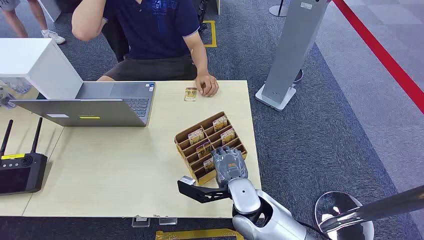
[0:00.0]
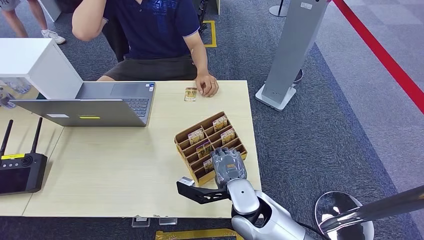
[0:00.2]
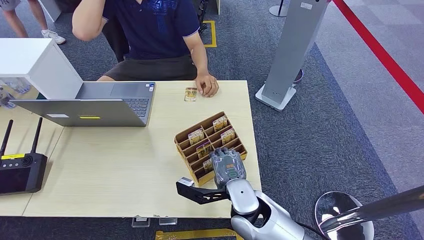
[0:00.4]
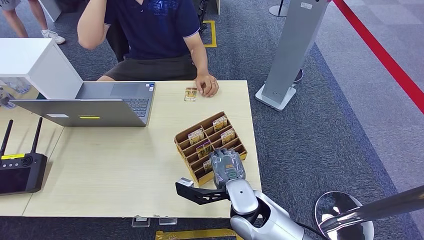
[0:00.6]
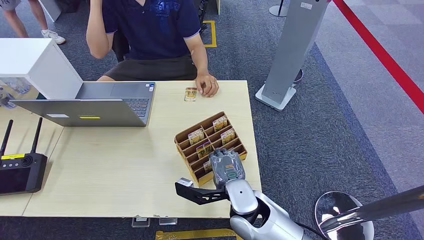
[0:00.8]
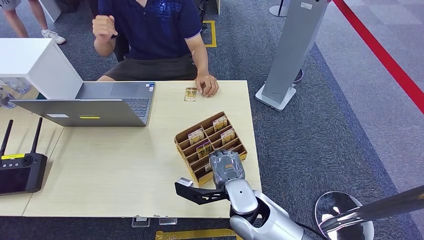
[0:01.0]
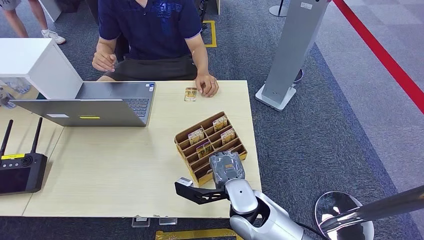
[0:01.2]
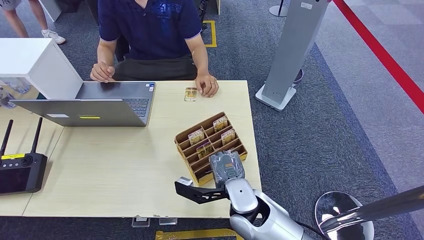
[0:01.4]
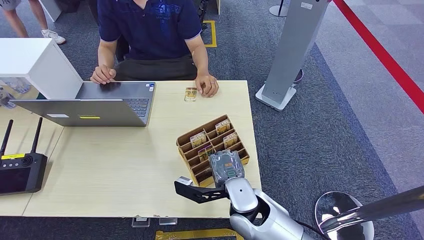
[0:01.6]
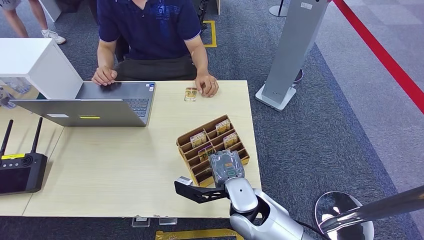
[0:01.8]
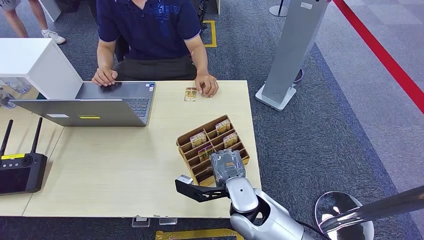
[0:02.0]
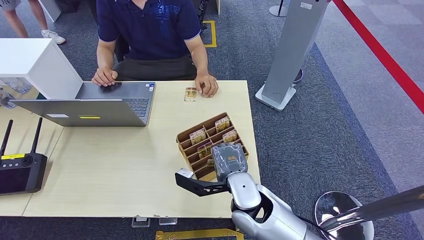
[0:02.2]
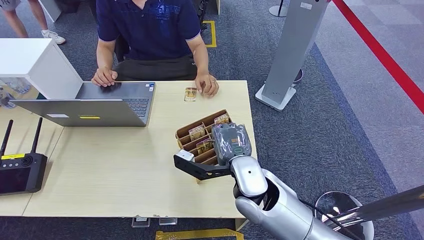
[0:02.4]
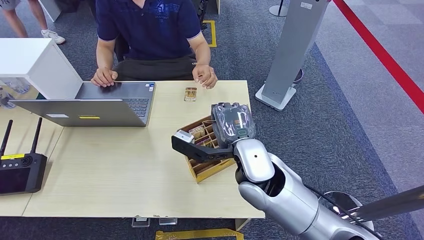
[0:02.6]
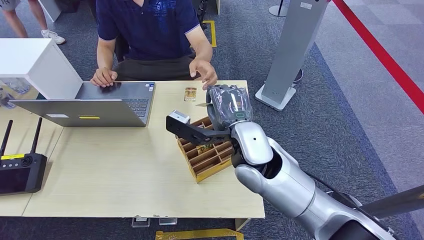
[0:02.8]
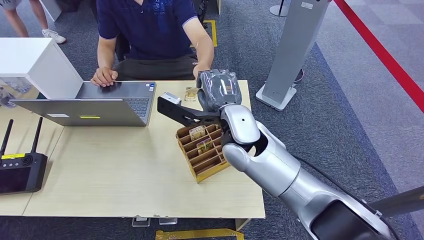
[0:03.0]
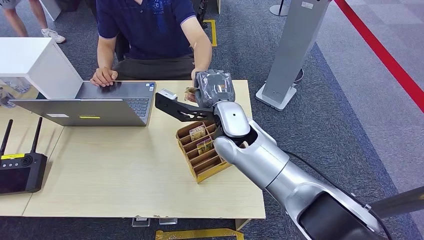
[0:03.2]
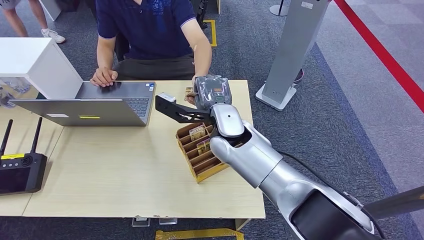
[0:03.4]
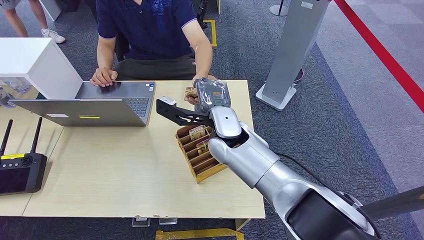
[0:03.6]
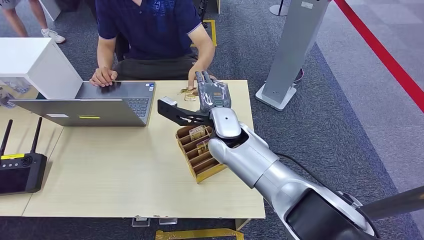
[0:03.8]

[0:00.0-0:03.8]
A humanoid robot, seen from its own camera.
Step, 0:00.0 to 0:01.8: Pick up the room card from the card holder.
Step, 0:03.0 to 0:03.6: Hand the room card to the target.
0:01.2 to 0:02.6: The right hand is displaced upward by some 10 cm.
0:02.6 to 0:03.8: The right hand is displaced forward and to the left by approximately 10 cm.

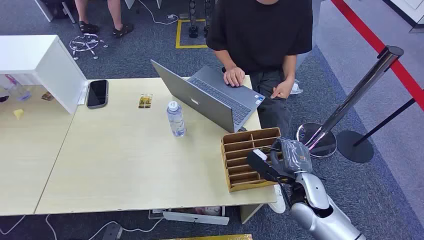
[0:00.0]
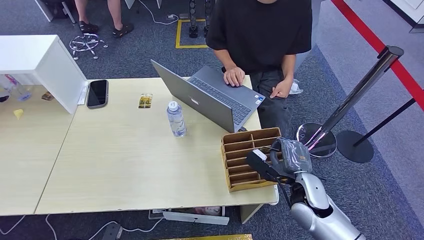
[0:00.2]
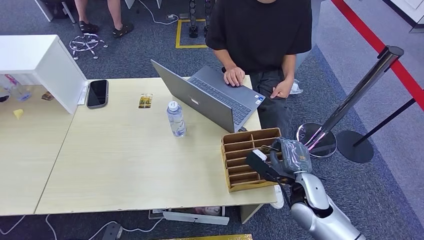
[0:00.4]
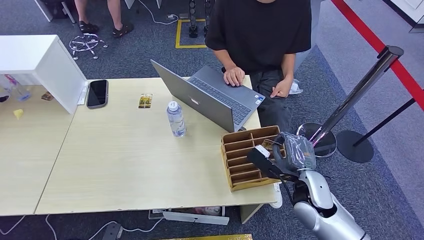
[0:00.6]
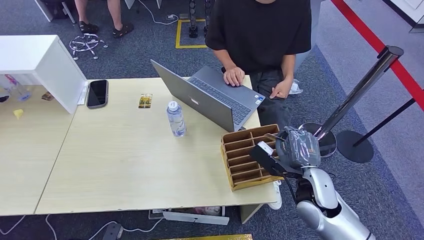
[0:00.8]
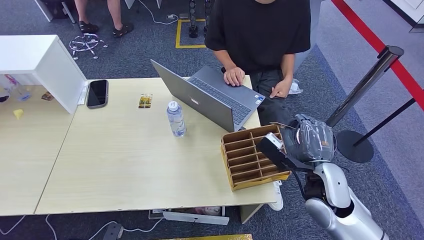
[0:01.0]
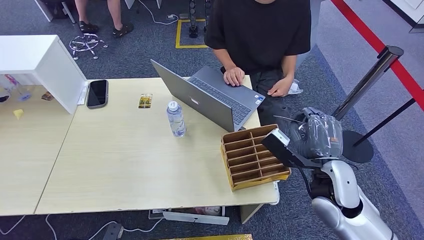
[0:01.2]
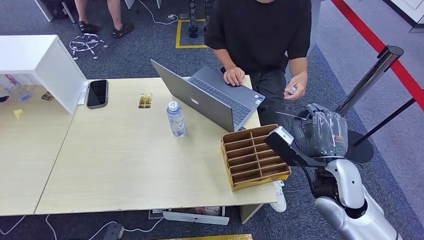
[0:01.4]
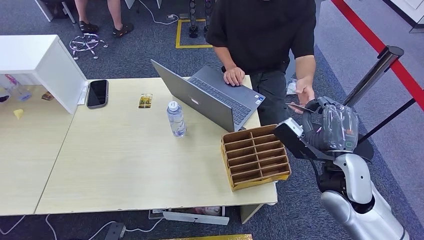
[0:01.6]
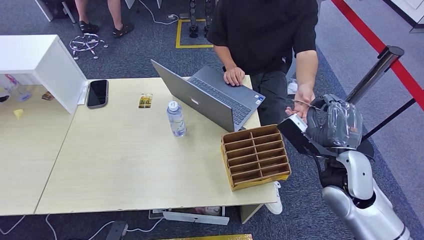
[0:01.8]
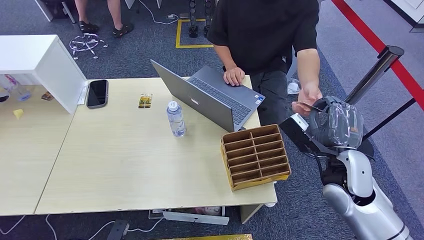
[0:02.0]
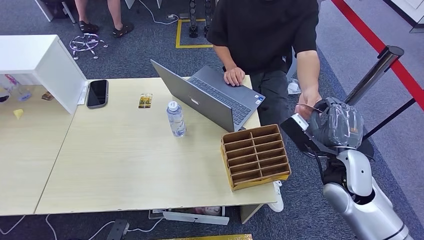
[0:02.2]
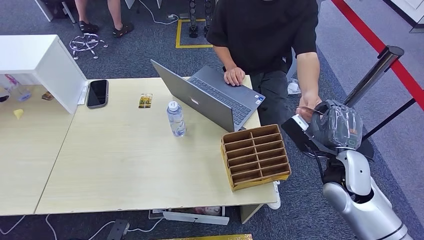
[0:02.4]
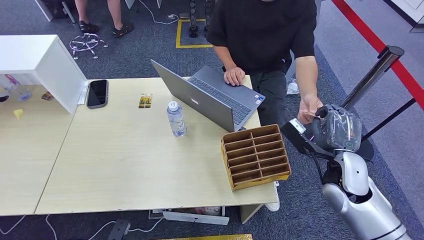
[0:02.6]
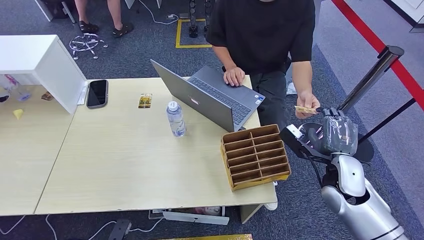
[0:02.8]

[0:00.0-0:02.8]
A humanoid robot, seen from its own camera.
Step, 0:00.0 to 0:00.8: Pick up the room card from the card holder.
Step, 0:01.2 to 0:02.8: Hand the room card to the target.
0:01.4 to 0:02.8: The right hand moves to the right and downward, about 5 cm.
